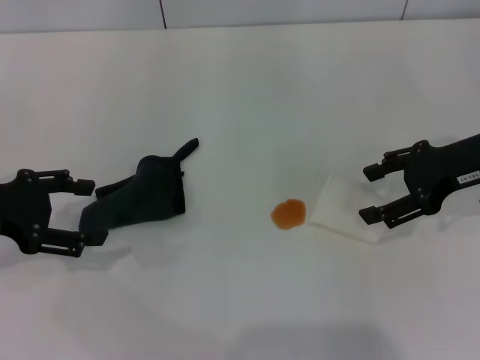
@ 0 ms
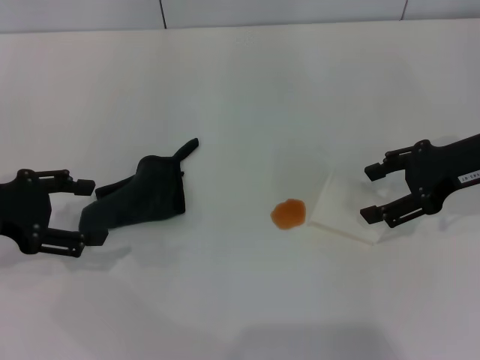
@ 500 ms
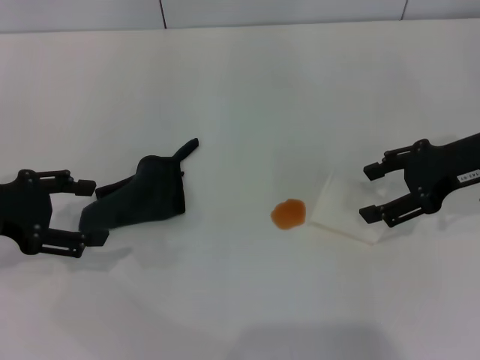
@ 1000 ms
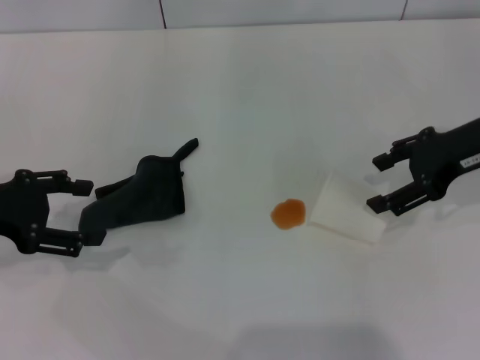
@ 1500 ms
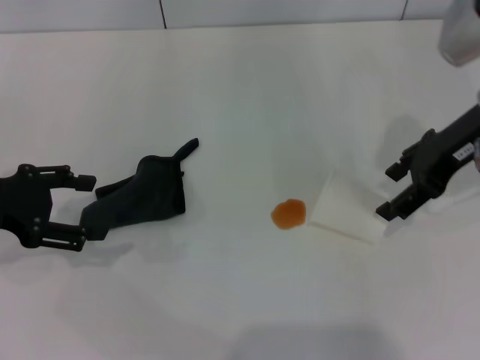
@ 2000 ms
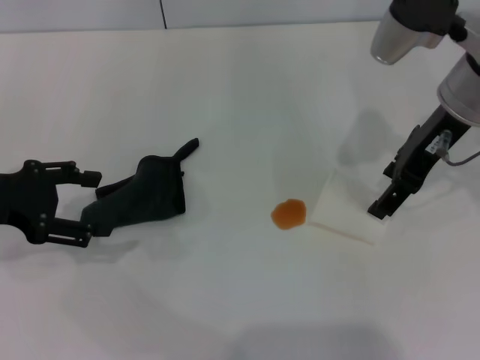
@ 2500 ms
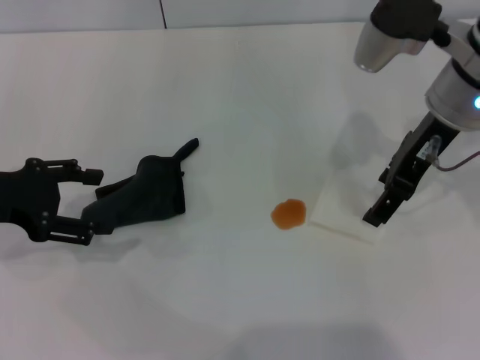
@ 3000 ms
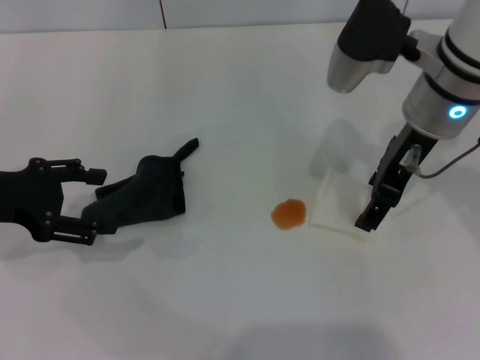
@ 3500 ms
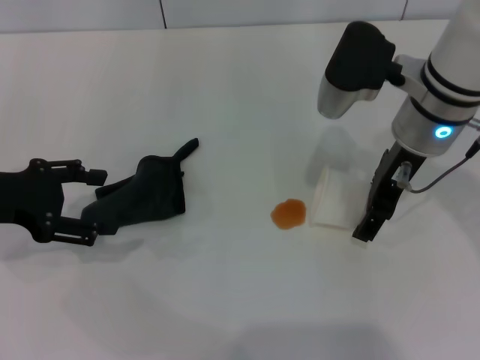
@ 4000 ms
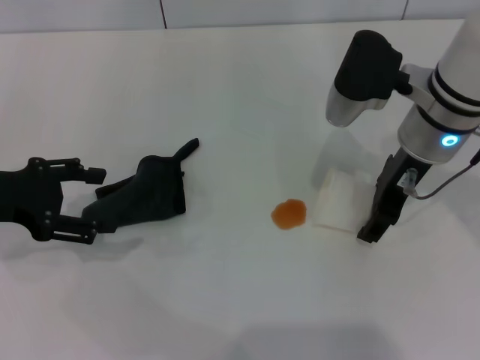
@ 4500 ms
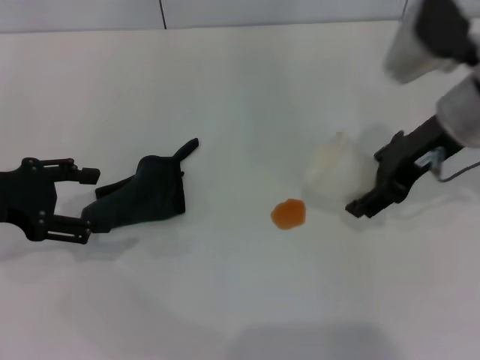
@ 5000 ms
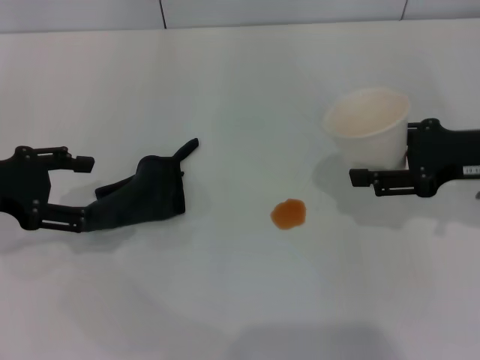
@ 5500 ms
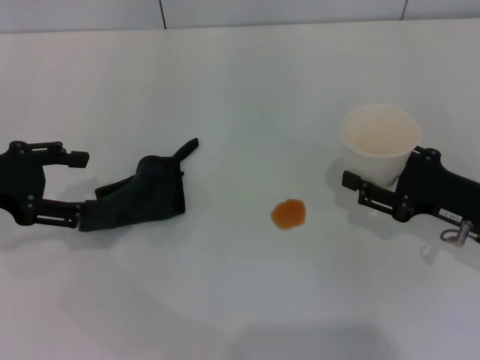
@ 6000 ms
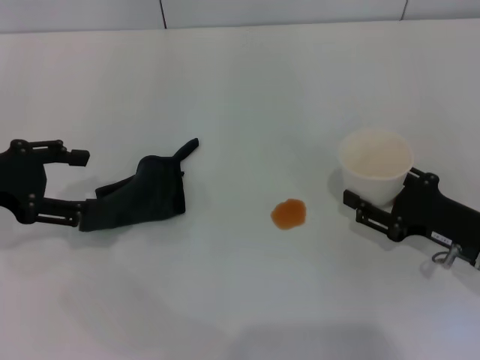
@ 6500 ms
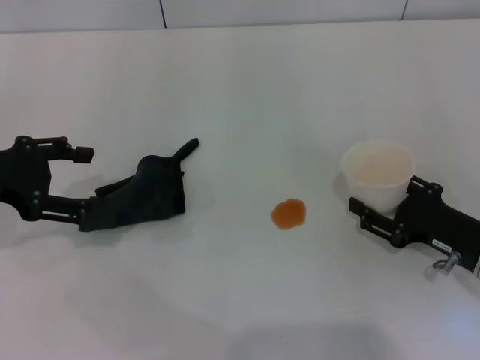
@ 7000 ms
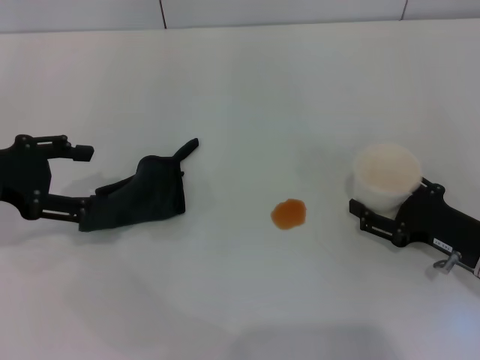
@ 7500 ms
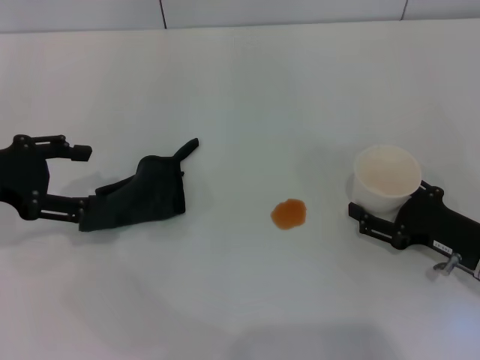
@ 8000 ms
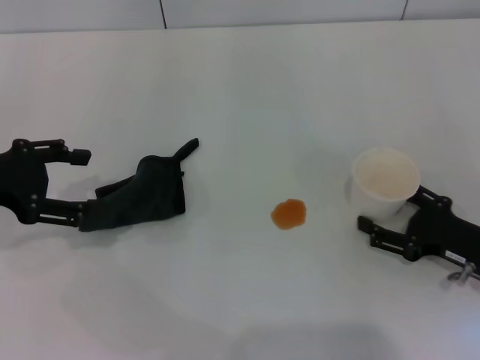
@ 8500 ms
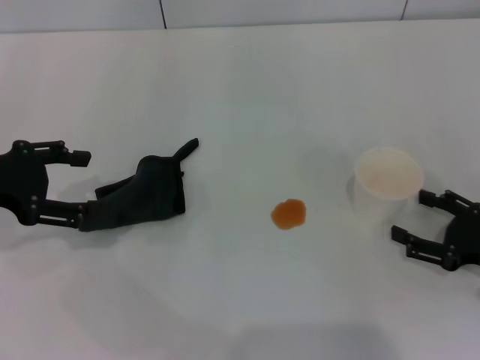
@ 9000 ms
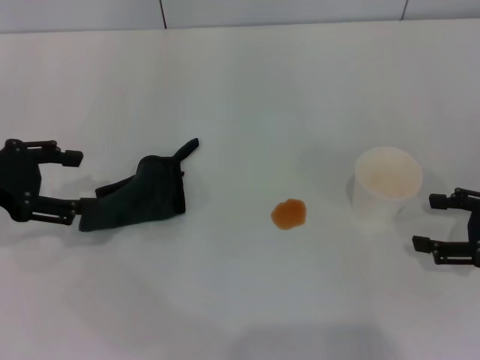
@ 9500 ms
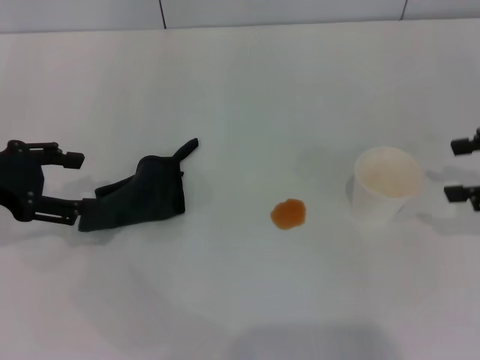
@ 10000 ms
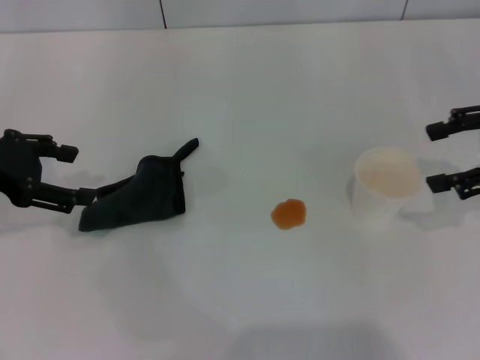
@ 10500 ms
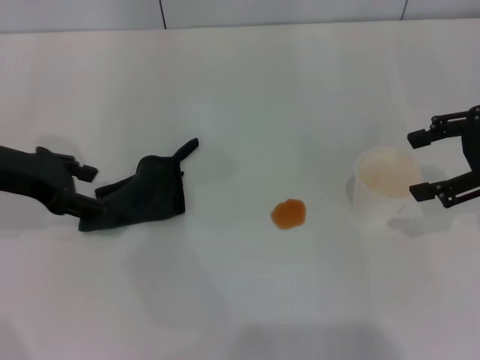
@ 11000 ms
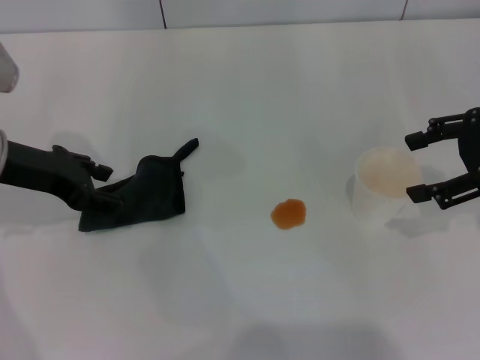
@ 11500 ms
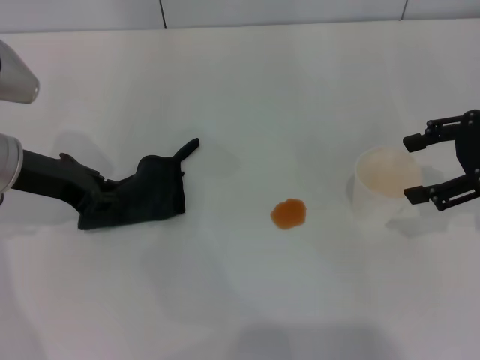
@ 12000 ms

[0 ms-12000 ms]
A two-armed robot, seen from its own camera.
Step, 0 ms to 4000 ms: Grasp the paper cup with the right gripper.
Step, 4500 ms to 8500 ms: Stand the paper cup upright with the right gripper.
0 ms to 2000 ms: The right gripper moves some 5 cm.
2000 ms to 4000 ms: The right gripper shifts approximately 10 cm to the left.
4000 ms to 6000 ms: The right gripper shifts approximately 20 cm to the right, downward and backward, and closes up.
6000 ms to 8000 ms: The right gripper opens up.
8000 ms to 10000 ms: The right gripper goes about 15 cm upward and to the right.
10000 ms to 12000 ms: The right gripper moves some 5 cm, while the left gripper moves to the right, approximately 5 cm, and closes.

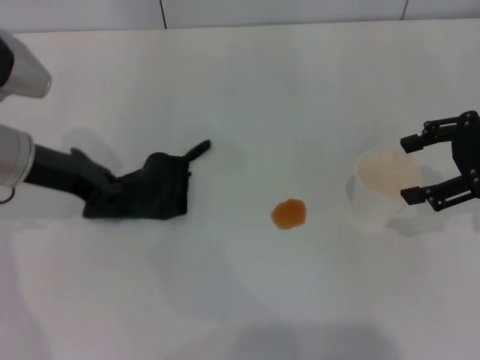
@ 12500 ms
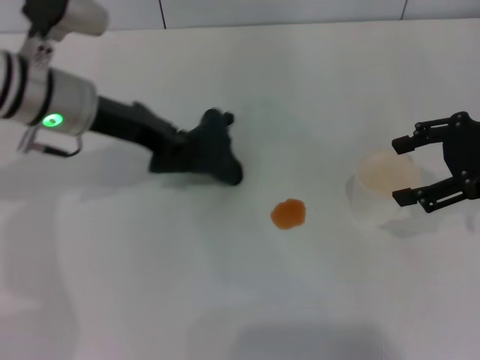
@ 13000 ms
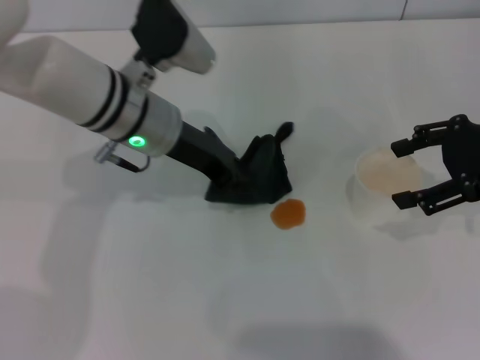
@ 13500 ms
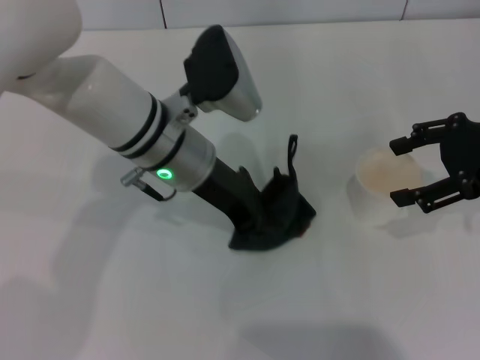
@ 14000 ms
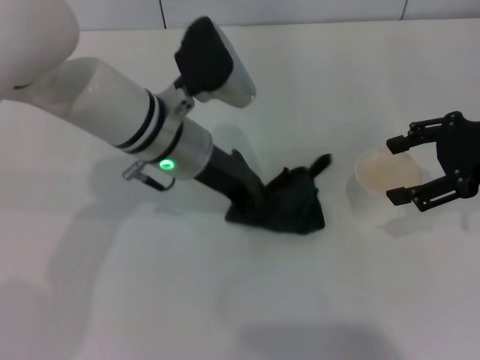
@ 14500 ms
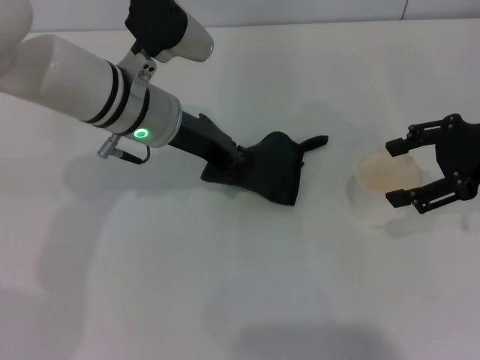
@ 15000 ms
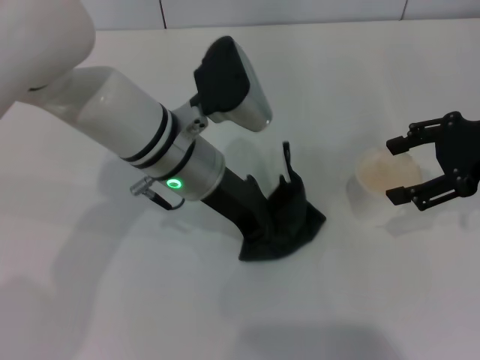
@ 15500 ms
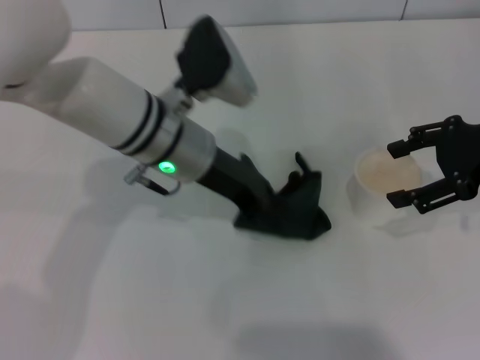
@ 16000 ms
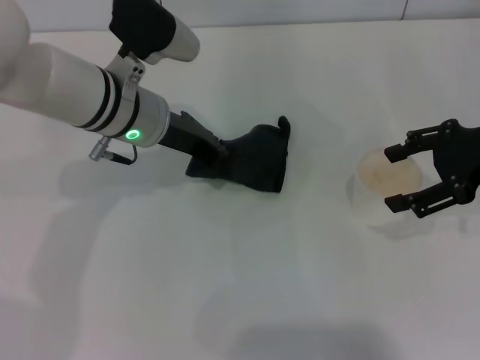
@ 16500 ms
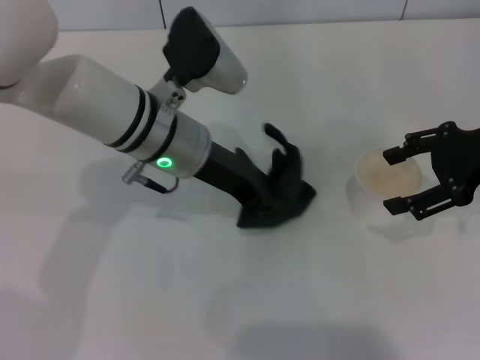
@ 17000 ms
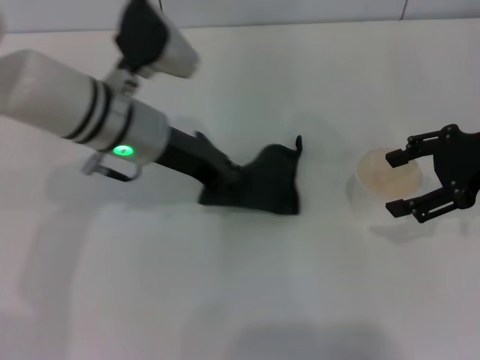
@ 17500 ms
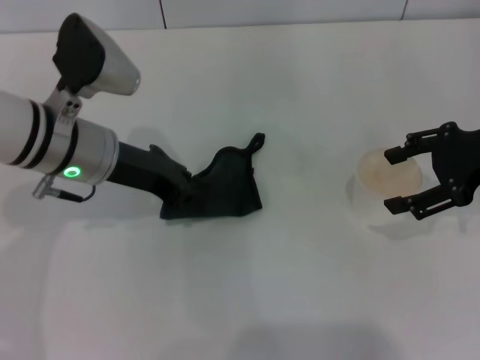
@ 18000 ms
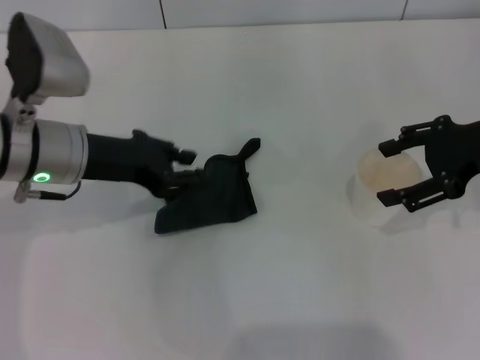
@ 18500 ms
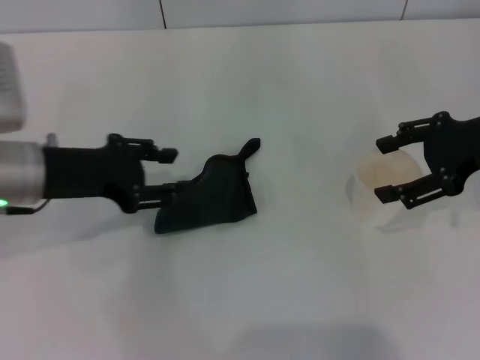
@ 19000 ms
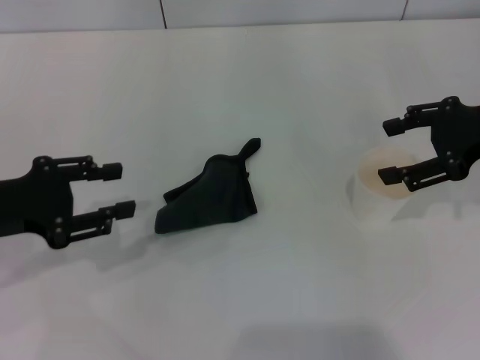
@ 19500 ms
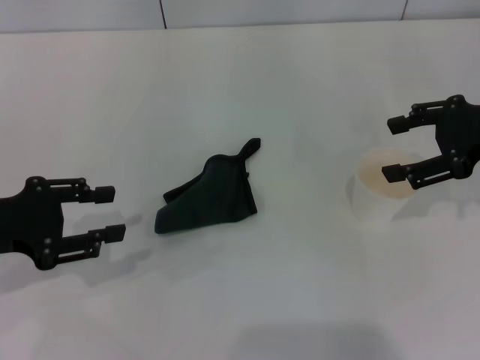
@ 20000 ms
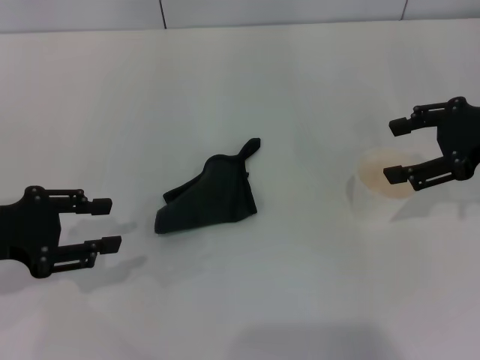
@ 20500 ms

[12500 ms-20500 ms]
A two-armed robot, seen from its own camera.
Step, 12500 ms to 18000 ms: Wipe the stains off the table with the left gripper.
Step, 18500 ms to 19000 ms: Place the rag on the table with the left gripper.
12500 ms to 14500 ms: The left gripper heads to the right, covering about 15 cm.
14500 ms to 16500 ms: The grippers make only small movements.
16500 ms to 18500 ms: The left gripper is displaced to the left by approximately 10 cm.
18500 ms to 20500 ms: The left gripper heads to the left and backward, covering about 15 cm, and opens its fingers.
